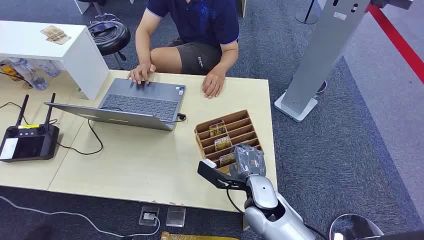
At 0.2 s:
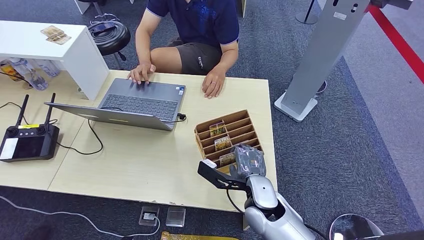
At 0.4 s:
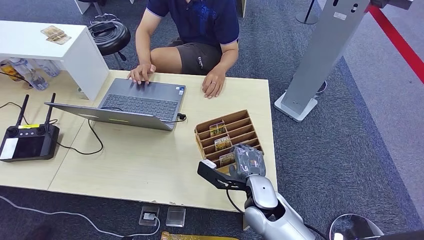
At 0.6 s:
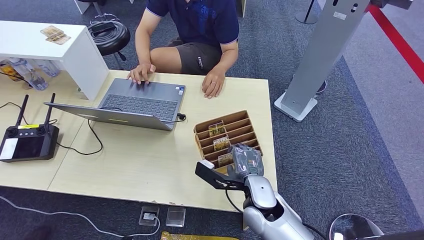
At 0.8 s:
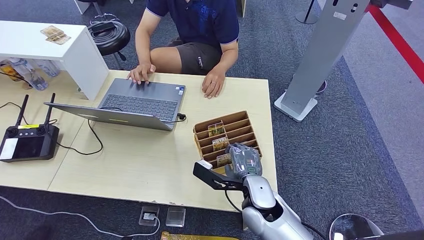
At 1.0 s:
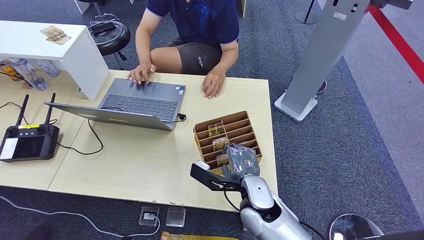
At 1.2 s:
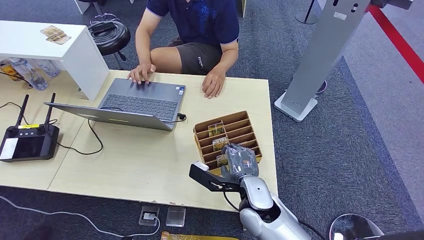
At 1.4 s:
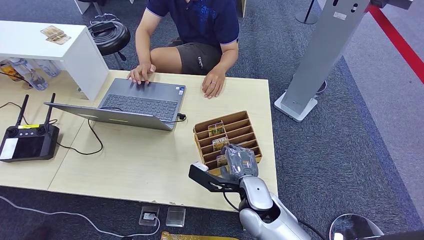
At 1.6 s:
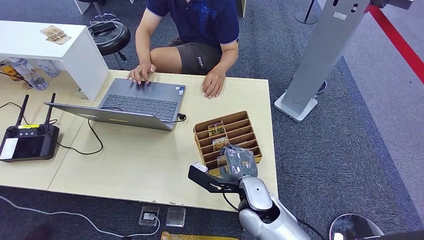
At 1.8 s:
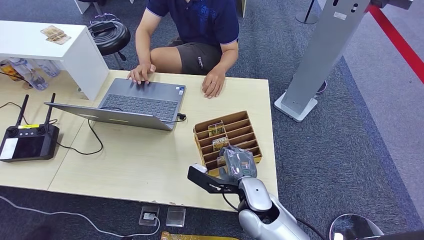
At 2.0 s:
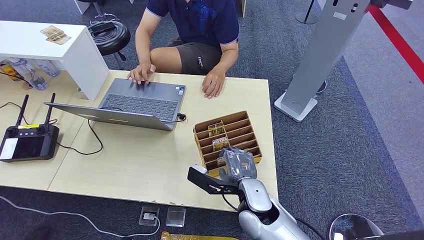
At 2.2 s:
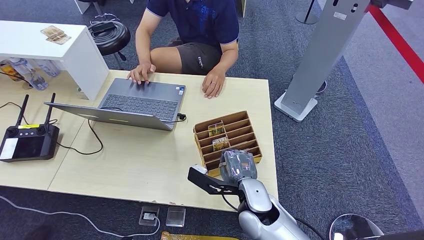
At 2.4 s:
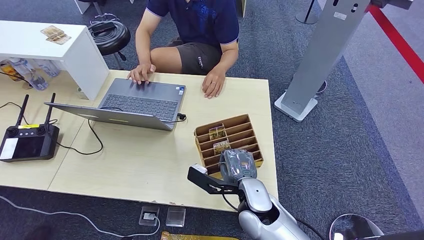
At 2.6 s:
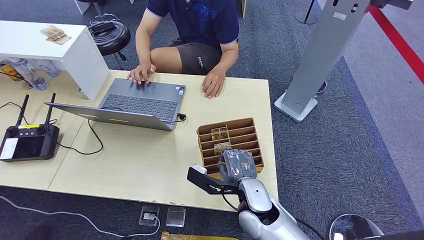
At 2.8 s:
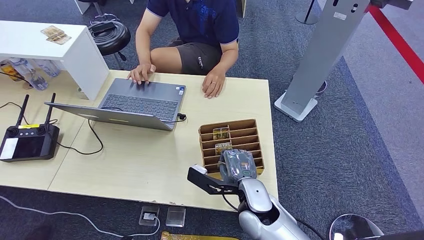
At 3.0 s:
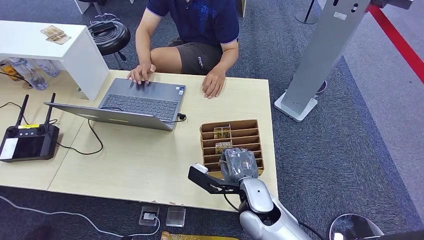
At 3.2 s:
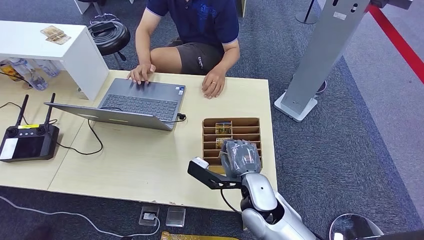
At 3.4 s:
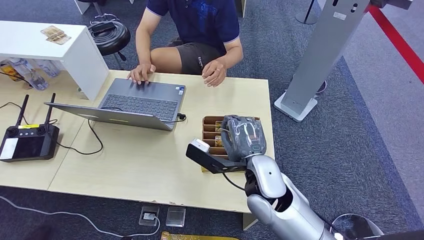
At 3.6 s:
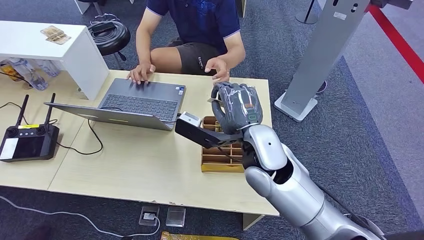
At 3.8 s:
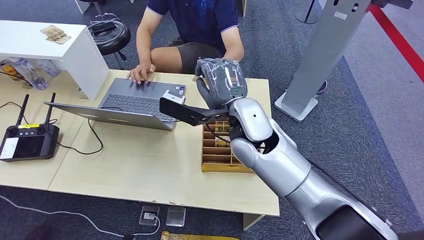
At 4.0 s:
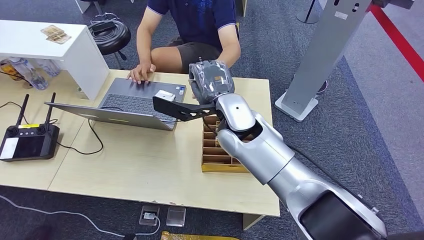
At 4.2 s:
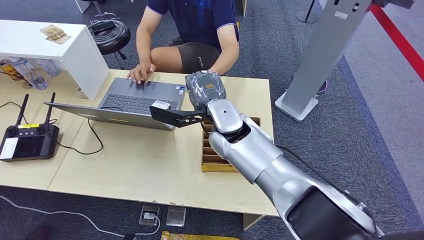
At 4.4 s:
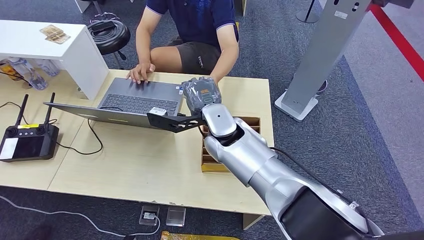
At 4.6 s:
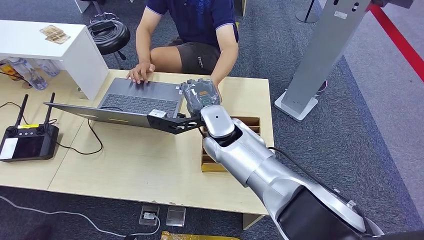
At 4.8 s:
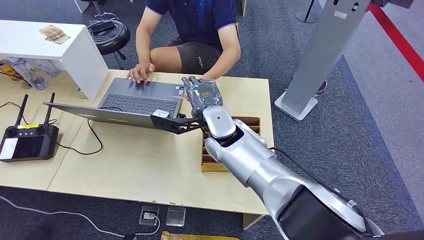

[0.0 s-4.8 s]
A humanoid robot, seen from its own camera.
Step, 0.0 to 3.2 s: Pick up the key card from the card box.
Step, 3.4 to 4.8 s: Hand the key card to the target.
1.6 to 3.2 s: There are only small adjustments of the hands.
3.2 to 4.8 s: The right hand moves forward, upward and to the left, some 20 cm.

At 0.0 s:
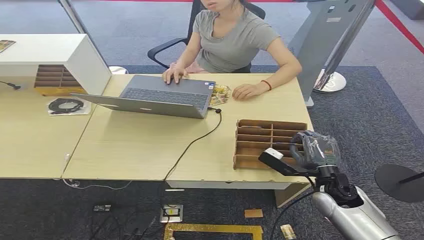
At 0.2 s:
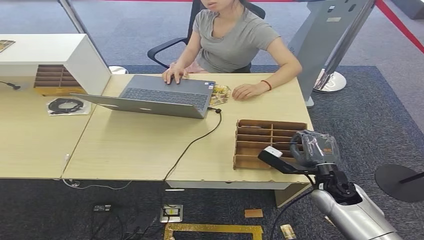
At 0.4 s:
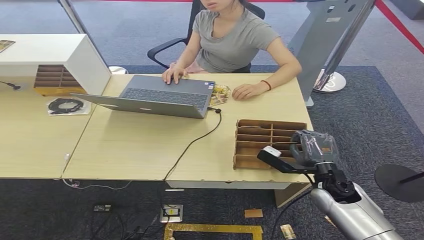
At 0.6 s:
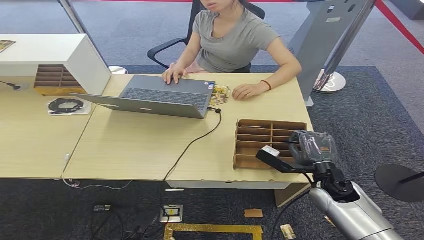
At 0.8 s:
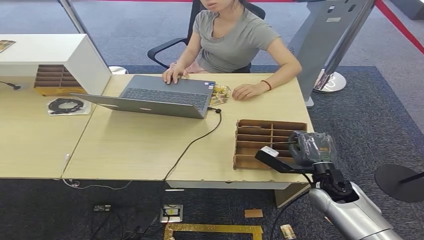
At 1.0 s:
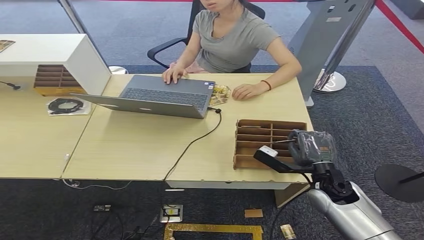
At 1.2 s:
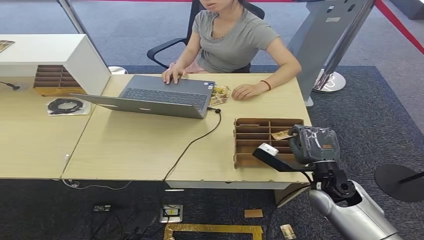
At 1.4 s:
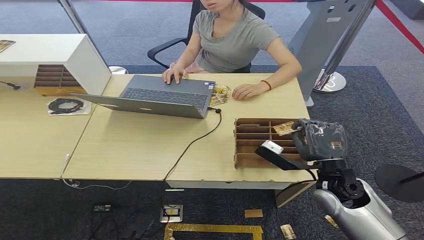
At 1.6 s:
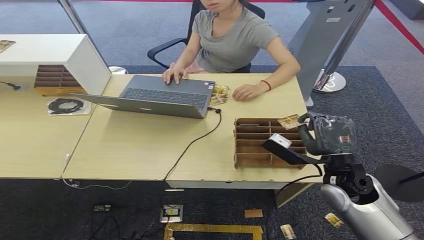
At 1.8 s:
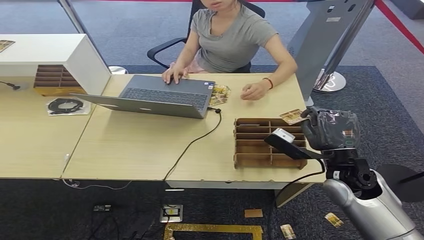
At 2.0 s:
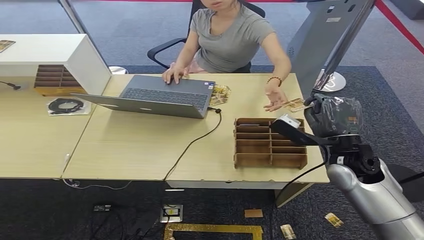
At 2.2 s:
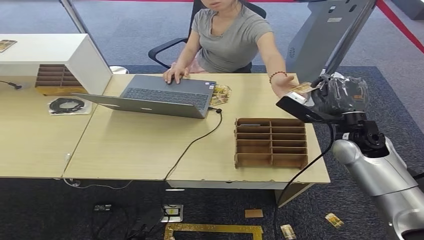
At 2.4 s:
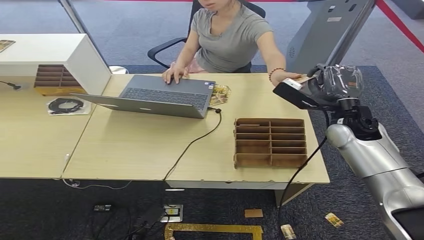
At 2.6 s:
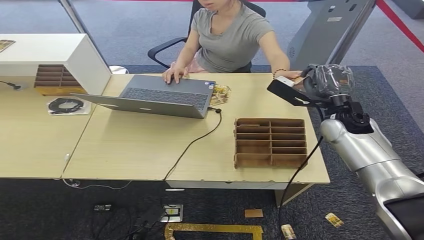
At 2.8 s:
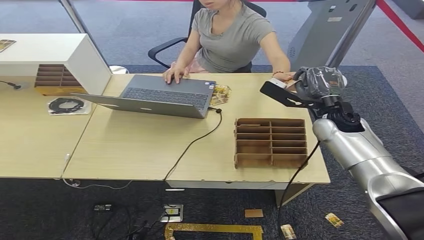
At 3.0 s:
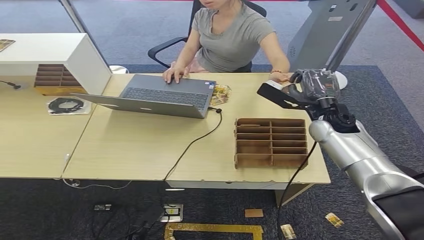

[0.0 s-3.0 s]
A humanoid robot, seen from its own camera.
Step, 0.0 to 1.4 s: Pick up the key card from the card box.
Step, 1.6 to 3.0 s: Hand the key card to the target.
1.6 to 3.0 s: The right hand travels forward by about 15 cm.

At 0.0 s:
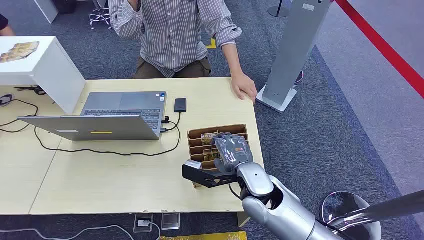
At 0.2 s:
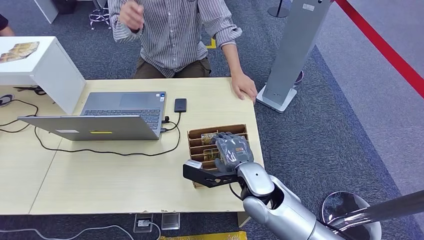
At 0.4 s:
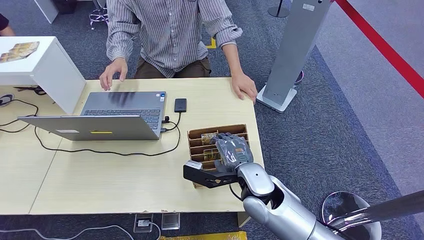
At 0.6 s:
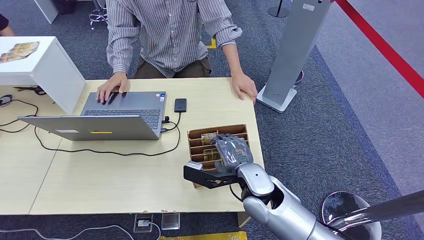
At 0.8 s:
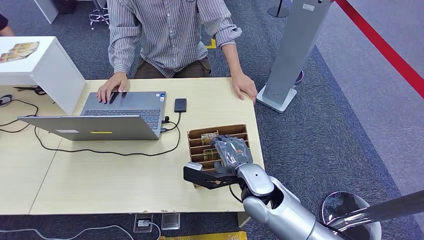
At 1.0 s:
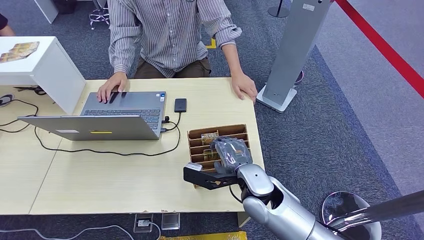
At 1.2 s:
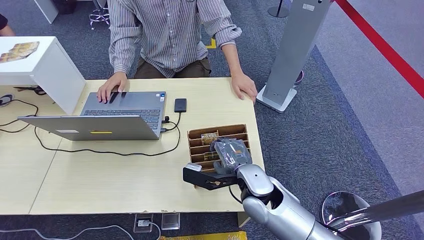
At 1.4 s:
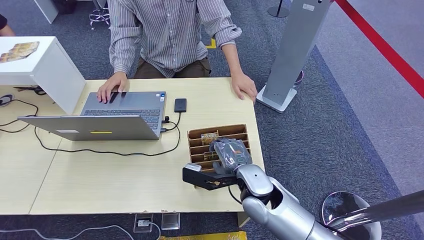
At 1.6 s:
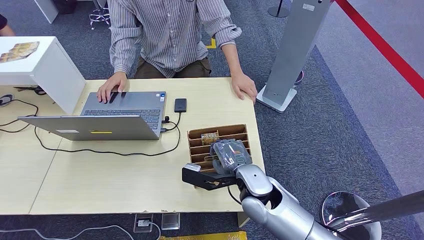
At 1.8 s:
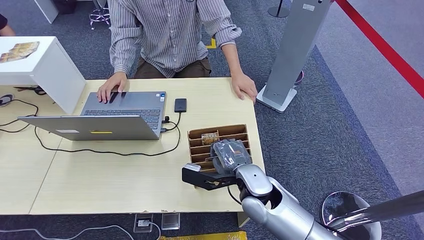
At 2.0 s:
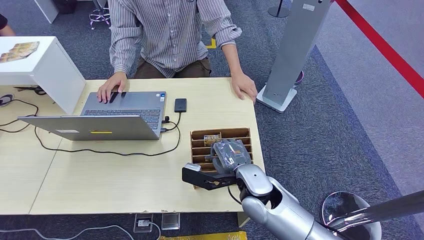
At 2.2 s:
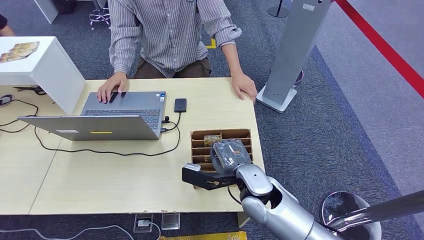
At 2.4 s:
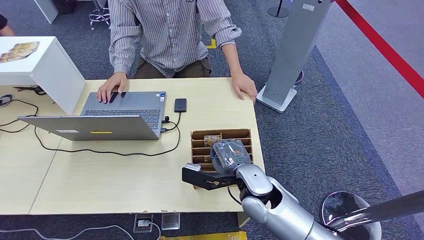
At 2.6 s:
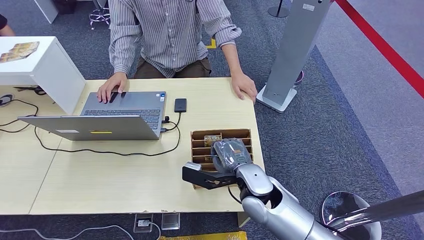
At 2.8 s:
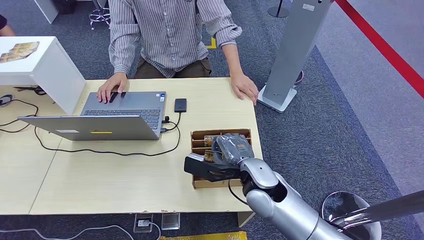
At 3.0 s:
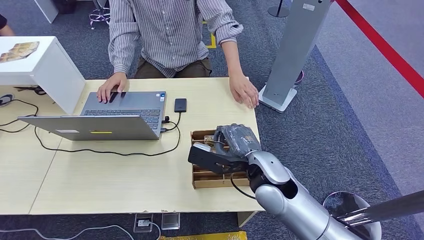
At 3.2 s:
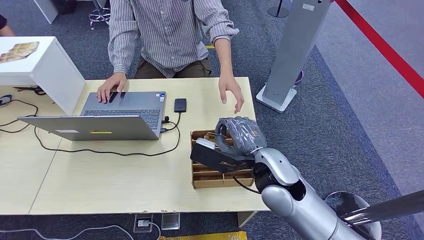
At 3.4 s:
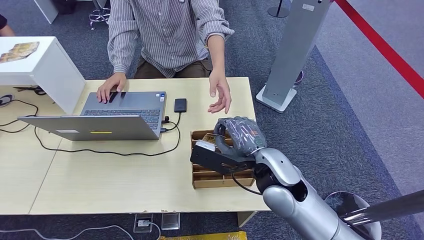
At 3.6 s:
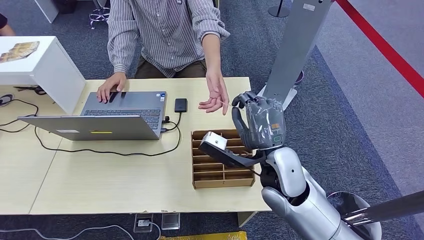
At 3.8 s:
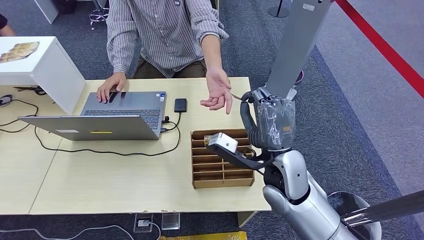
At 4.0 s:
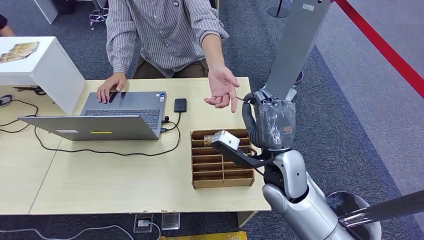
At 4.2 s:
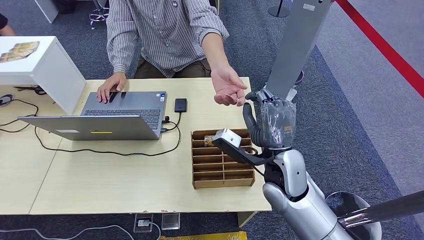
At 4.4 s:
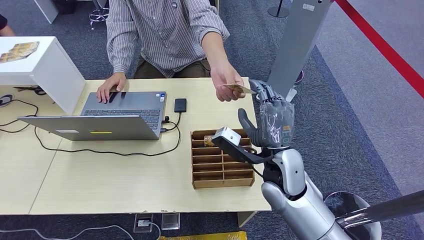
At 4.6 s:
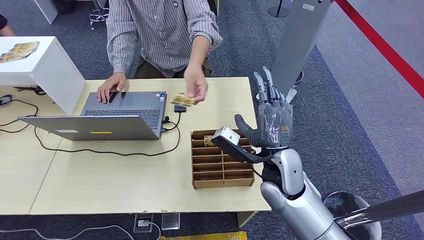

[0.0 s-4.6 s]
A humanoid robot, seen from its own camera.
Step, 0.0 to 3.0 s: Pick up the key card from the card box.
Step, 3.8 to 4.6 s: Hand the key card to the target.
1.6 to 3.0 s: The right hand moves some 5 cm.
